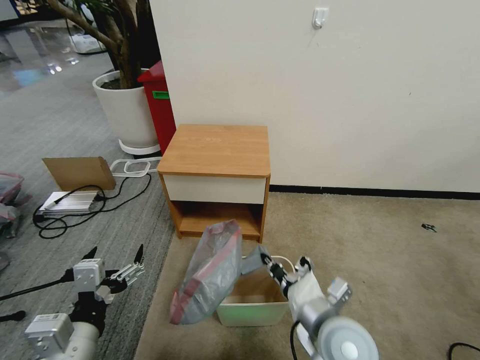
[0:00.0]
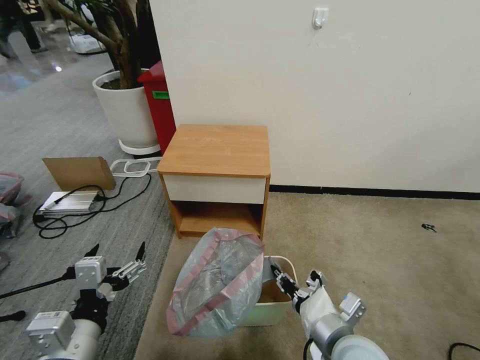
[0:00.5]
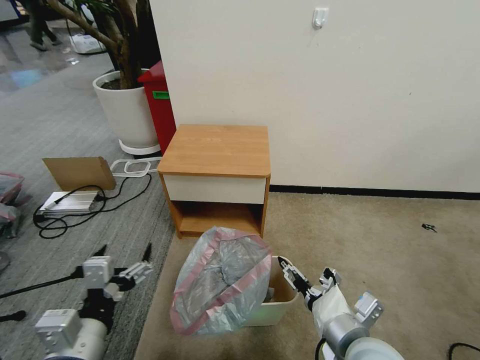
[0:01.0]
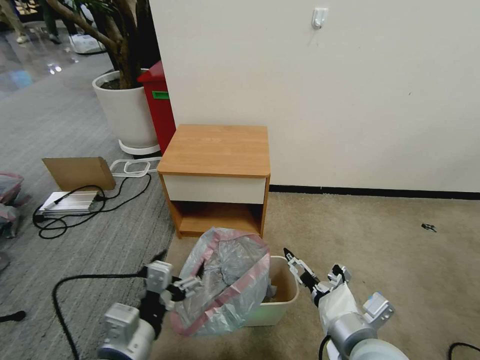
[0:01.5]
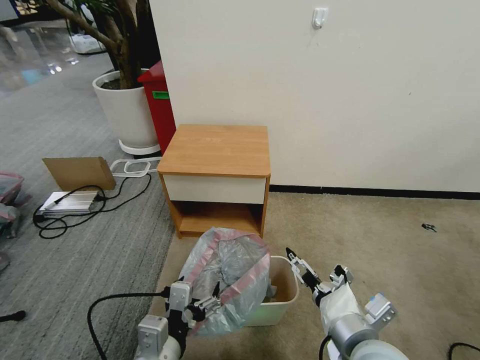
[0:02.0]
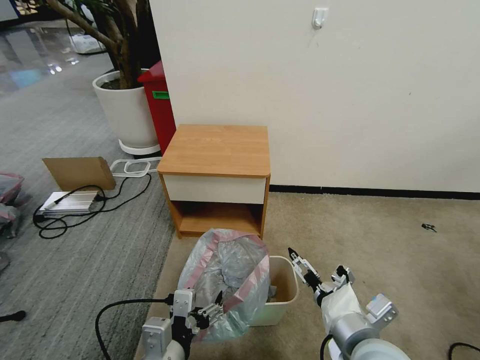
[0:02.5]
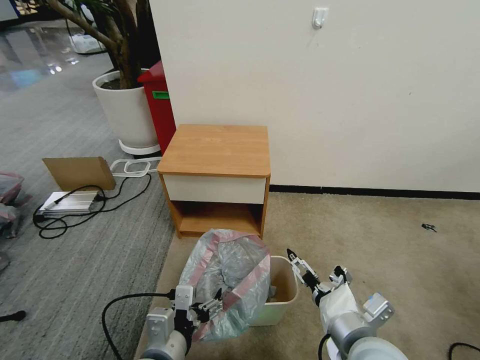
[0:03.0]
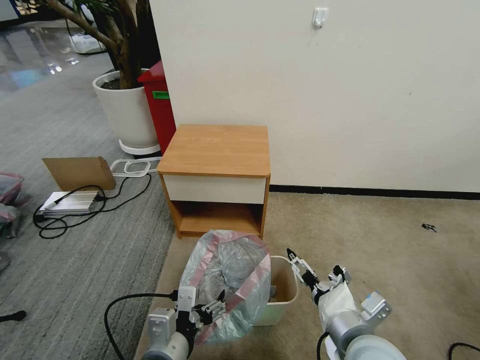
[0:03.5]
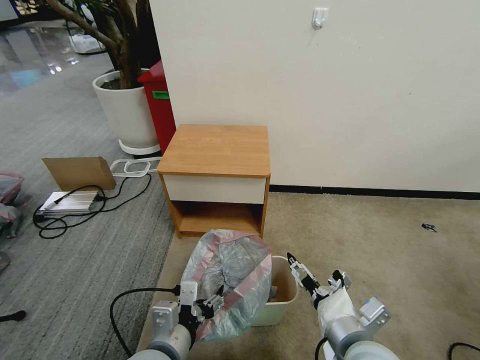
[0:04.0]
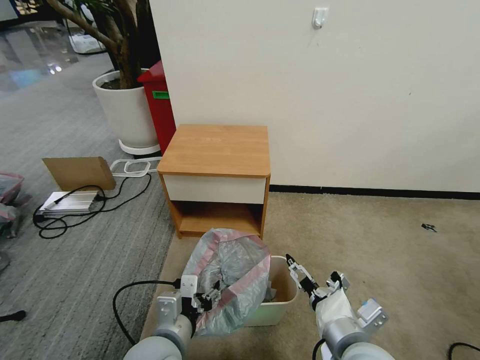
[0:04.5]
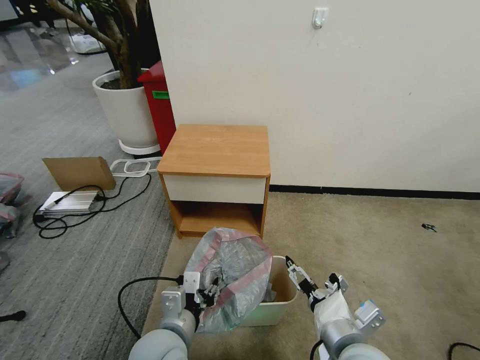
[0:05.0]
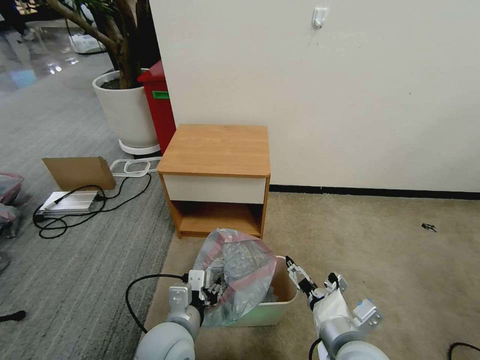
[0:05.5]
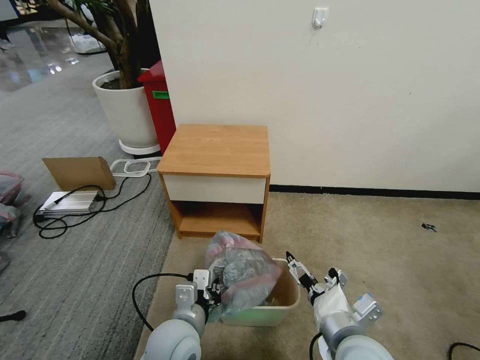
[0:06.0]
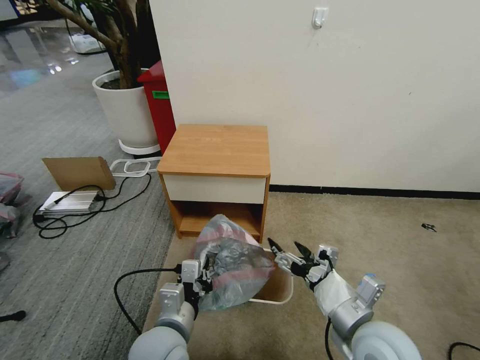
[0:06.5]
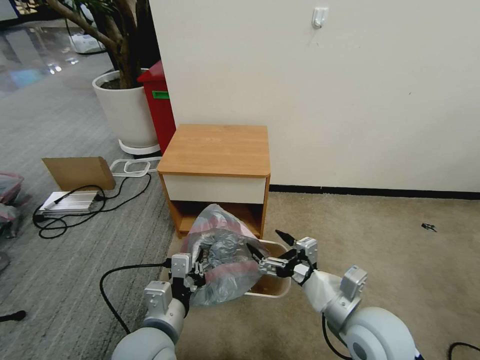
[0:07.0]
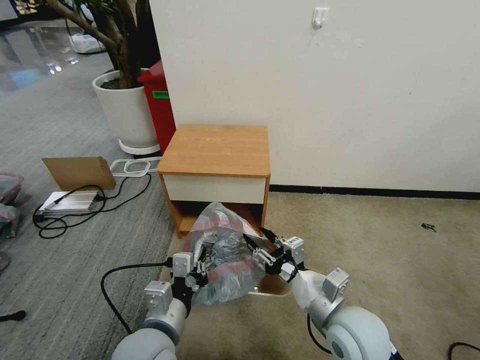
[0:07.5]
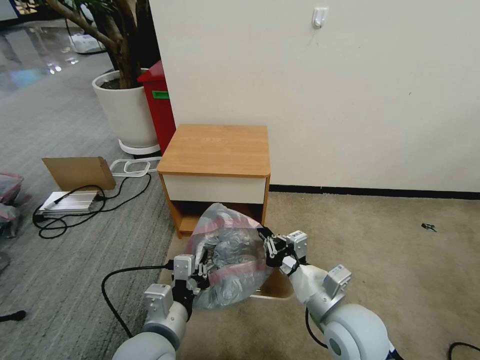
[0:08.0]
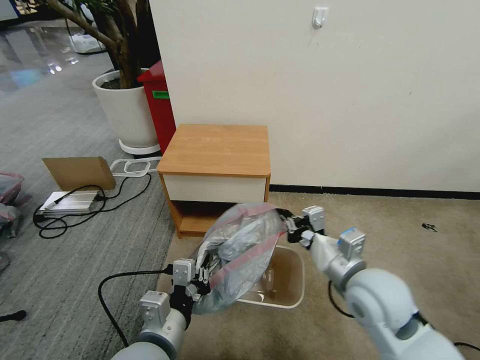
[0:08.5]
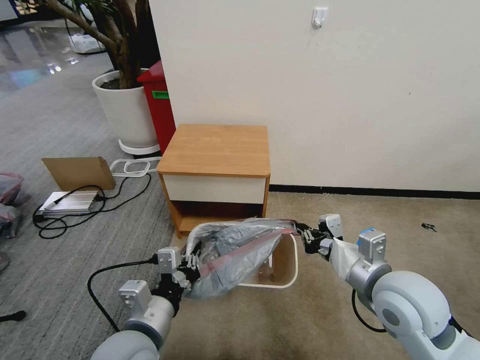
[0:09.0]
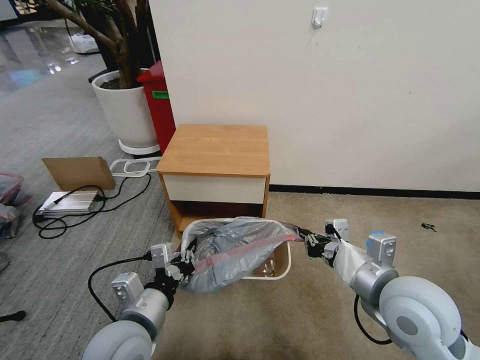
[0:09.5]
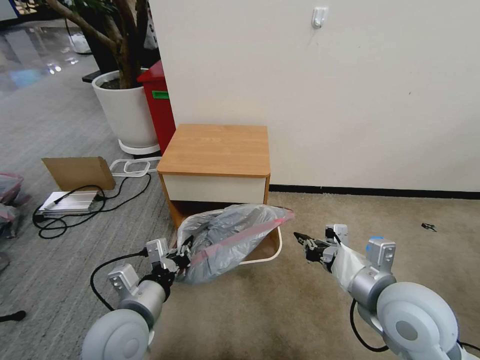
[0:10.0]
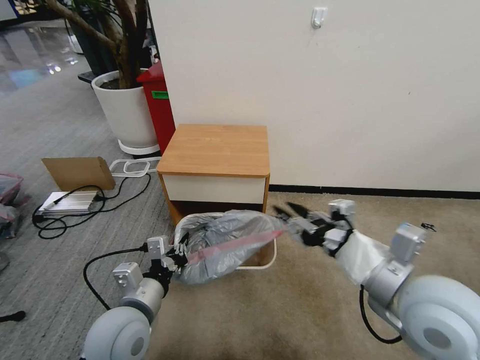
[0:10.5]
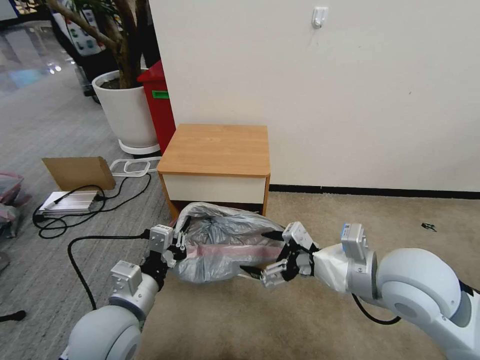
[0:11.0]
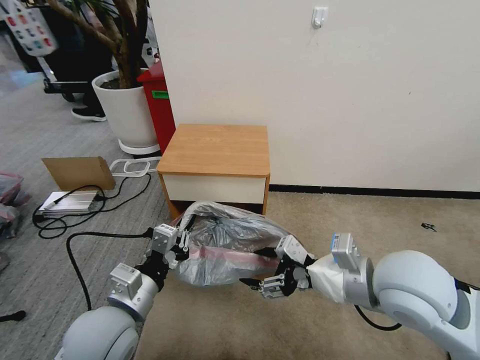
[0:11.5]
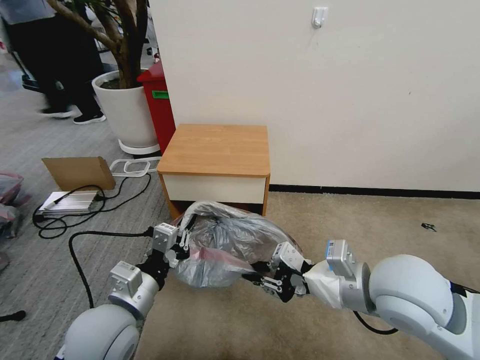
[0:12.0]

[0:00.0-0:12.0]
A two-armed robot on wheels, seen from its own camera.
Task of the whole recording: Pick up the garbage bag from the table and place it over the trash can.
0:00.0 to 0:02.0: The right gripper shifts by about 5 cm, and opens its fingers, while the left gripper is displaced to the right by some 10 cm.
0:02.0 to 0:04.0: There are only small adjustments of the grippers.
0:04.0 to 0:06.0: The left gripper moves forward, roughly 5 cm, and closes.
0:06.0 to 0:08.0: The left gripper heads upward, covering some 5 cm. Meanwhile the right gripper closes up.
0:08.0 to 0:10.0: The left gripper shifts roughly 5 cm to the left. Meanwhile the right gripper shifts roughly 10 cm upward and to the right.
0:10.0 to 0:12.0: The right gripper changes place by roughly 5 cm, and opens, then closes again.

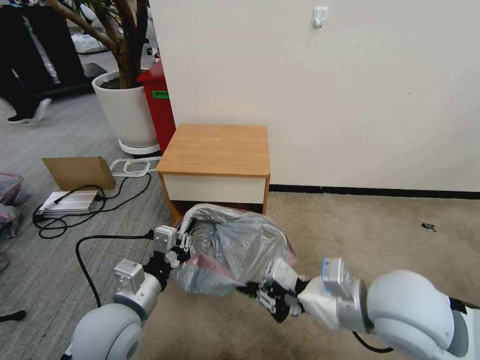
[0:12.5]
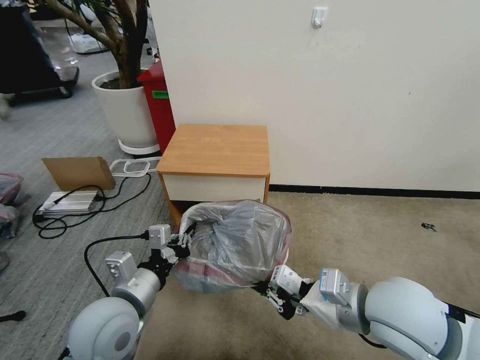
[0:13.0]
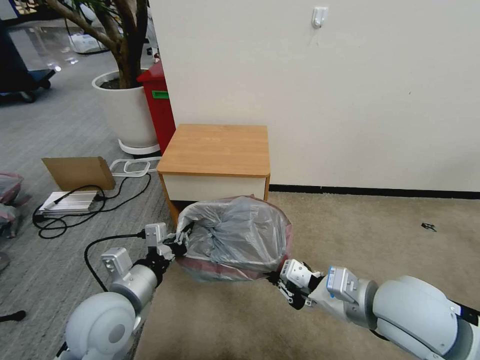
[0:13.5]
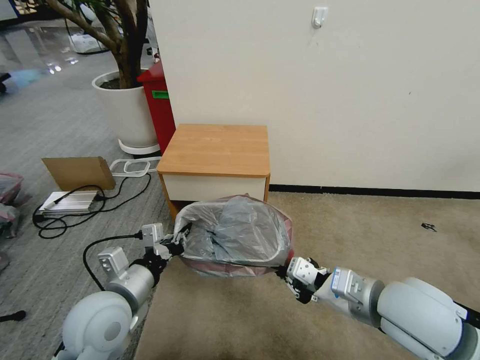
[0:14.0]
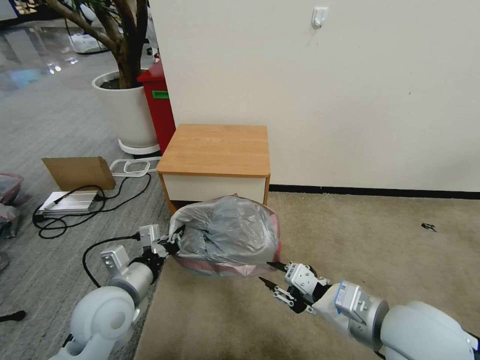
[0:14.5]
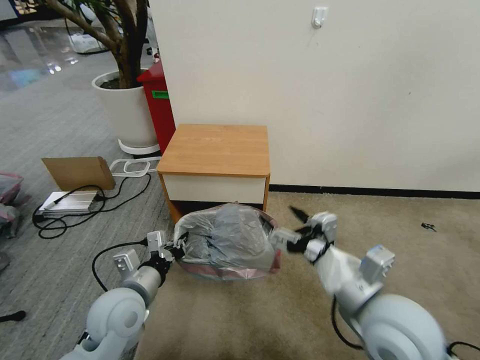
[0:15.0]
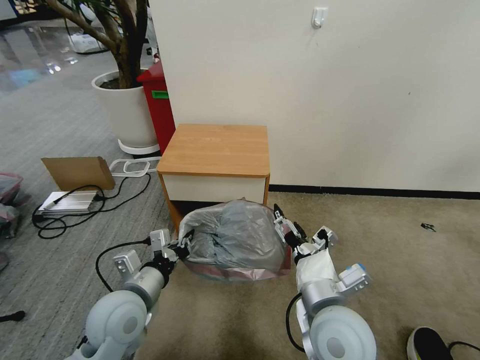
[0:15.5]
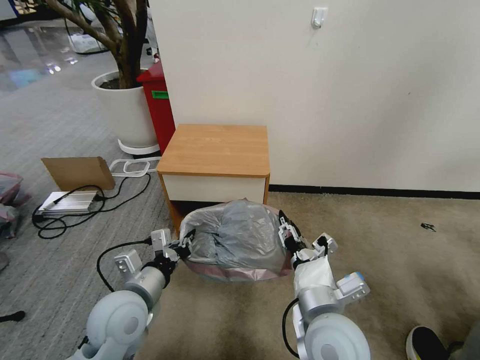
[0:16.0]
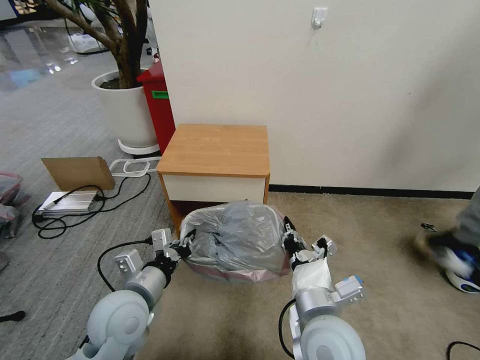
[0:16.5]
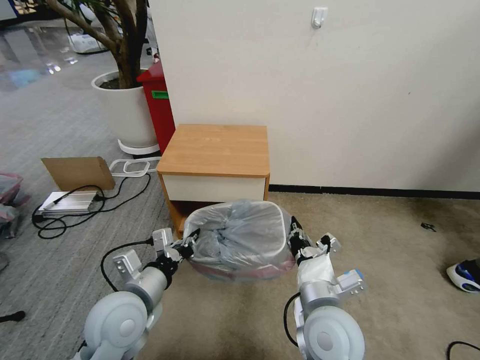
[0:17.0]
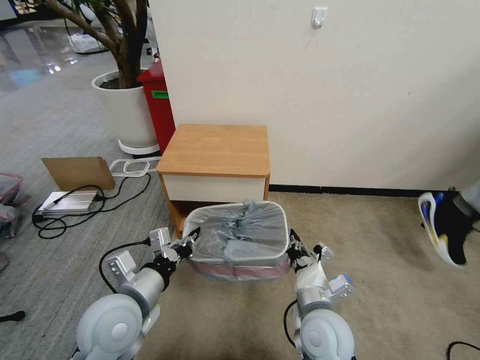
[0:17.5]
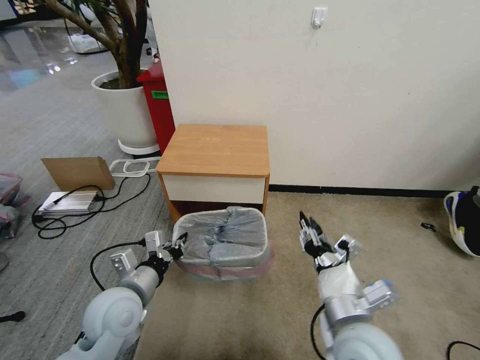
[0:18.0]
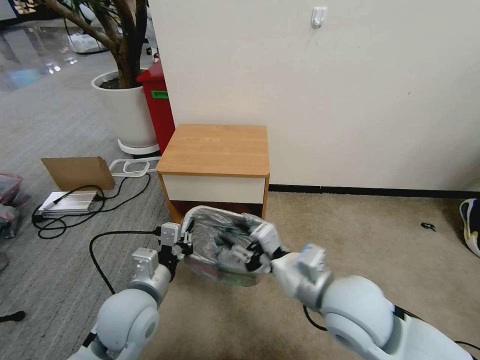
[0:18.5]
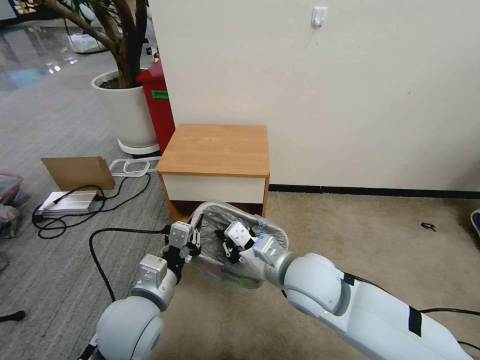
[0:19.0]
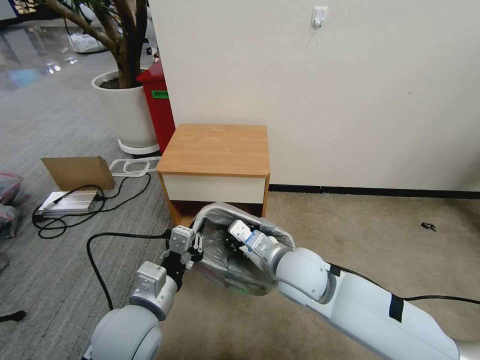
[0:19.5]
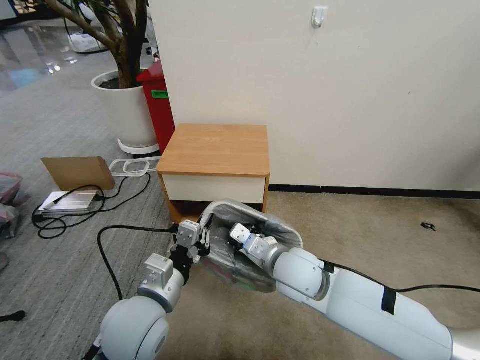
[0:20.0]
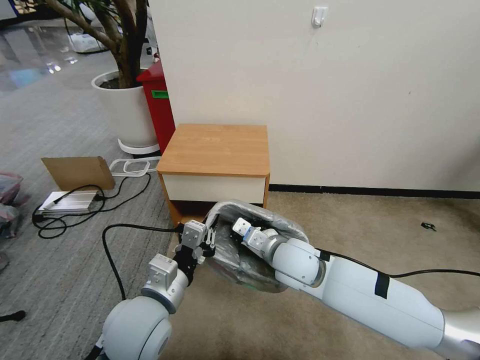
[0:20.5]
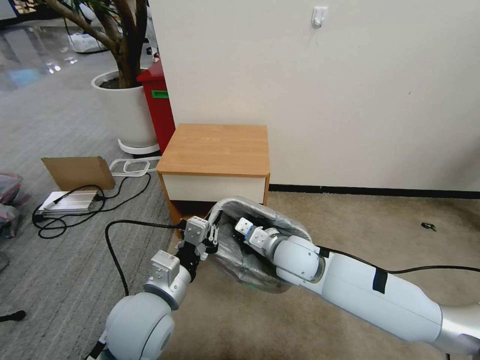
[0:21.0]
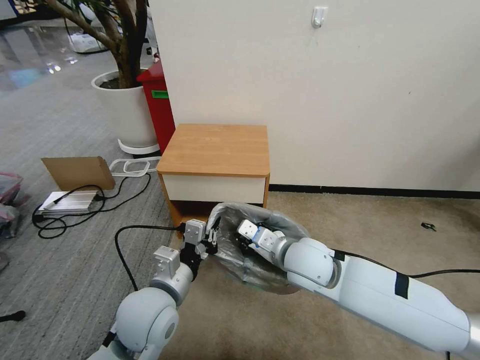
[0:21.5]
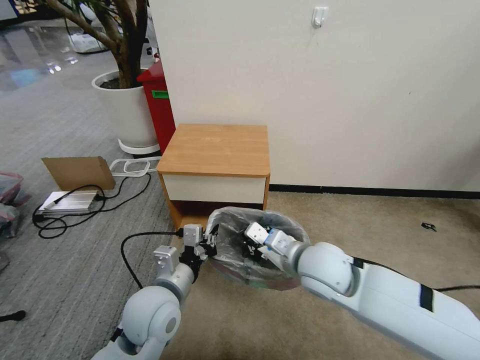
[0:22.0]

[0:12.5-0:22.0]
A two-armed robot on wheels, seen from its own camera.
Task of the whole recording: Pick up the garbage bag from the table and place it over the trash can.
0:14.5 to 0:16.5: The right gripper goes about 15 cm to the left and downward, and opens, then closes once more.
0:16.5 to 0:18.0: The right gripper is displaced to the right by approximately 5 cm, and opens.
0:18.0 to 0:20.0: The left gripper travels to the right by approximately 5 cm. Meanwhile the right gripper is displaced forward and to the left by some 15 cm, and closes.
0:20.0 to 0:22.0: The right gripper shifts by roughly 5 cm.

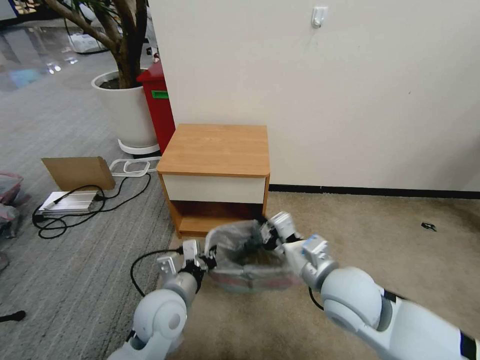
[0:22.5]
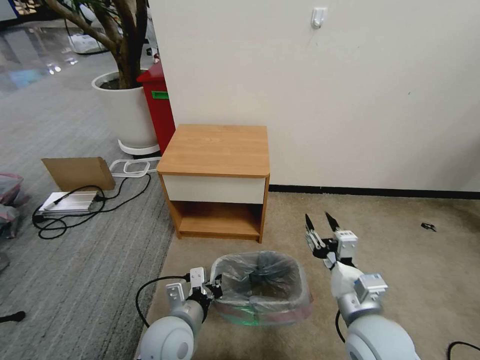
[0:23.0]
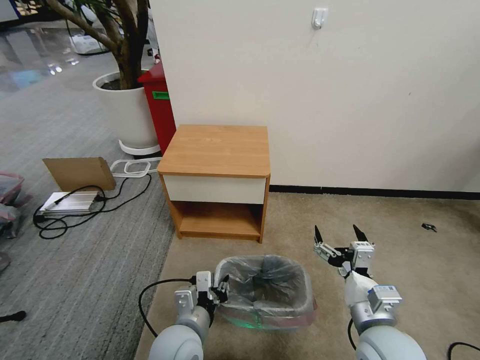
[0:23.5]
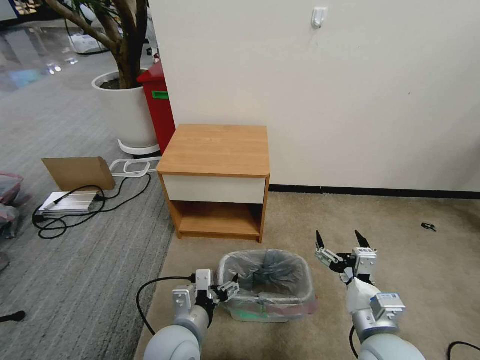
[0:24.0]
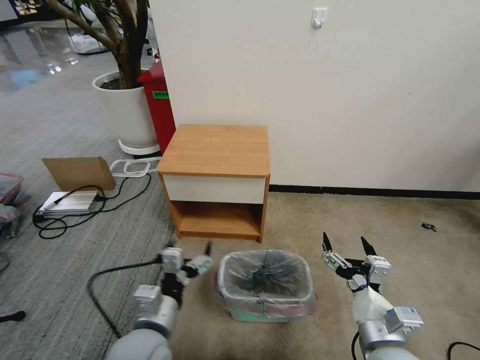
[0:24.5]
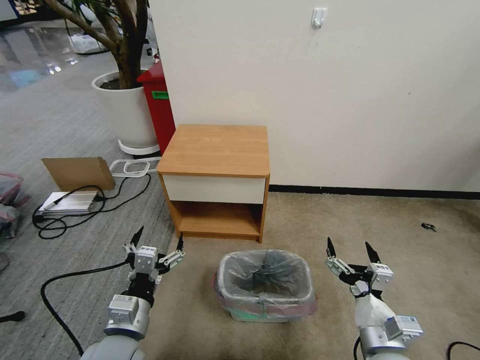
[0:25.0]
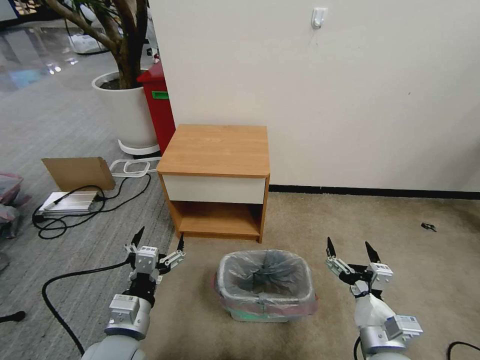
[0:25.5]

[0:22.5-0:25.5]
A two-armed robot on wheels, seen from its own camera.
Task of the whole recording: Pick up the garbage bag from the table and place it over the trash can.
0:22.5 to 0:24.0: The right gripper goes some 15 cm backward, downward and to the right, and opens; the left gripper is displaced backward by some 5 cm, and opens.
0:24.0 to 0:25.5: The left gripper moves to the left, roughly 10 cm.
